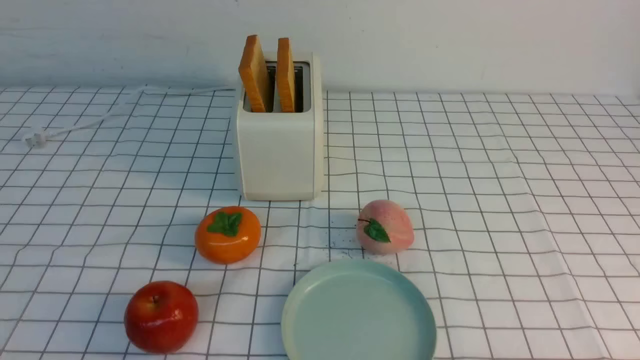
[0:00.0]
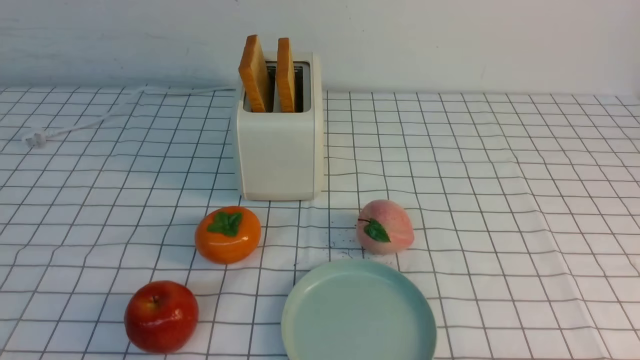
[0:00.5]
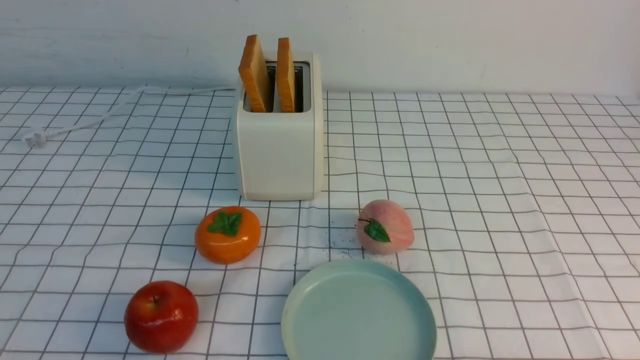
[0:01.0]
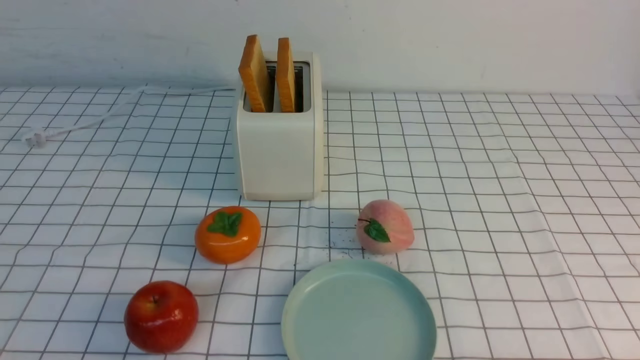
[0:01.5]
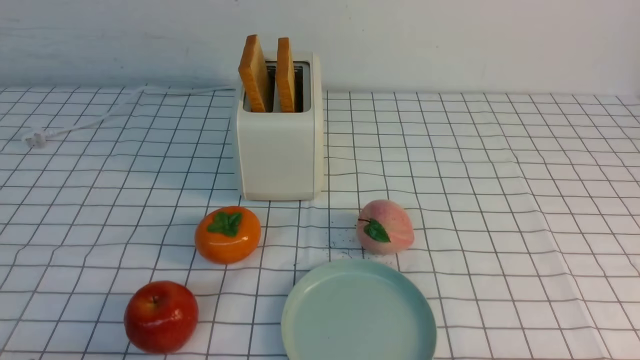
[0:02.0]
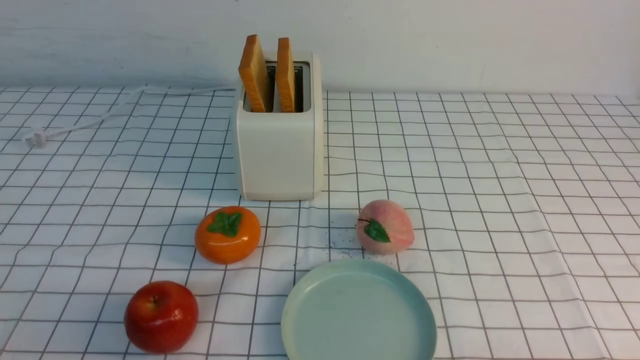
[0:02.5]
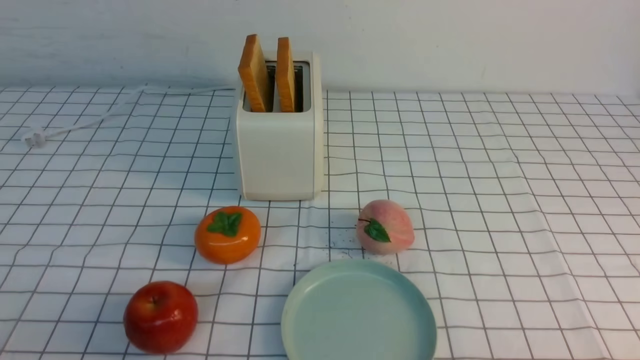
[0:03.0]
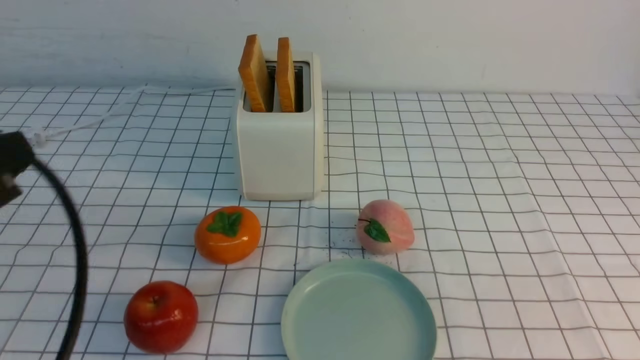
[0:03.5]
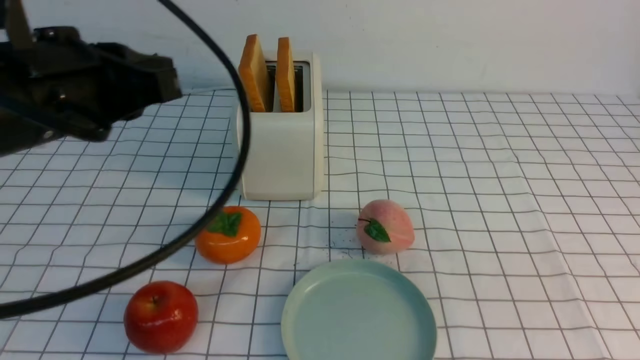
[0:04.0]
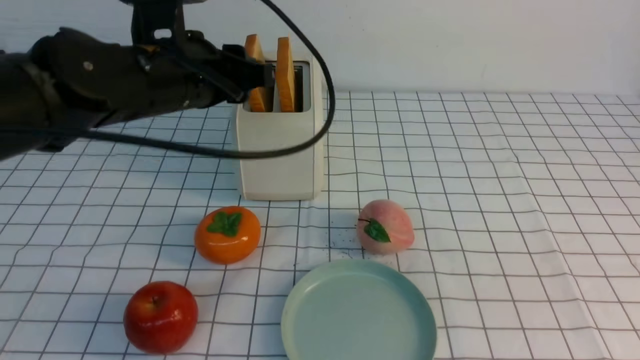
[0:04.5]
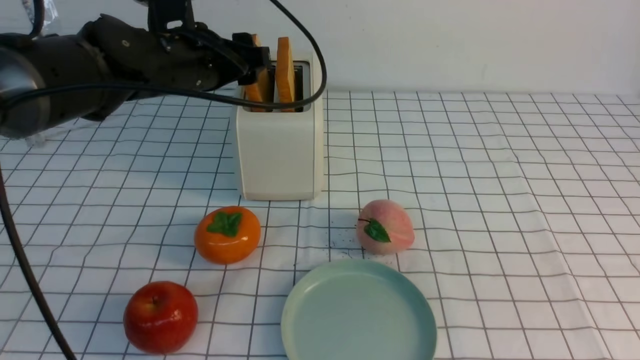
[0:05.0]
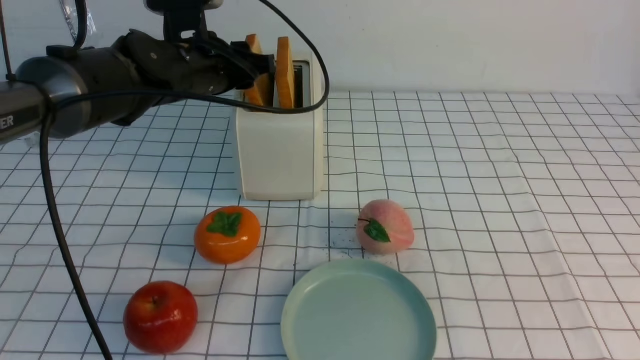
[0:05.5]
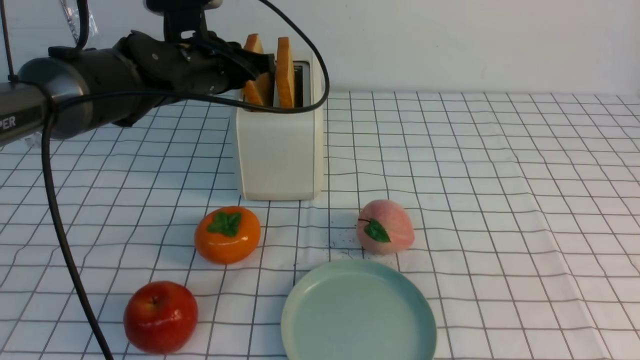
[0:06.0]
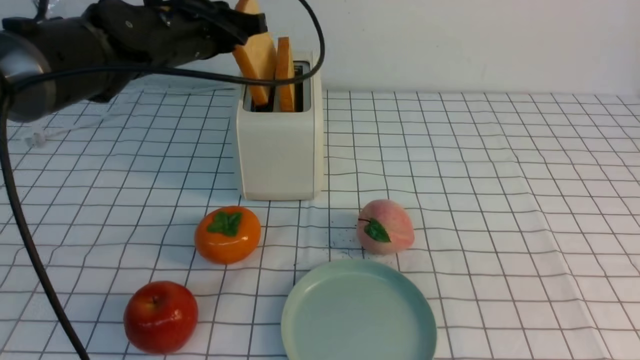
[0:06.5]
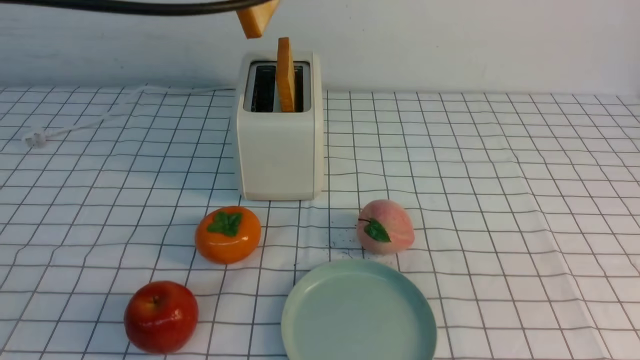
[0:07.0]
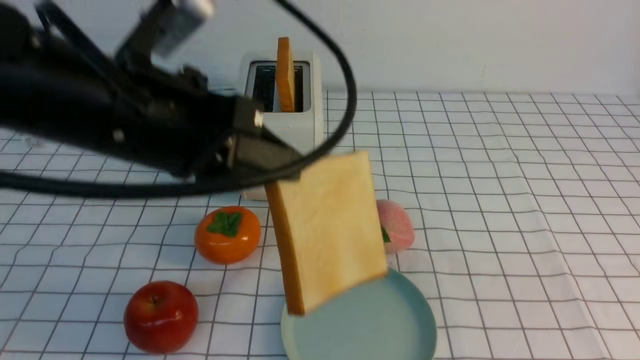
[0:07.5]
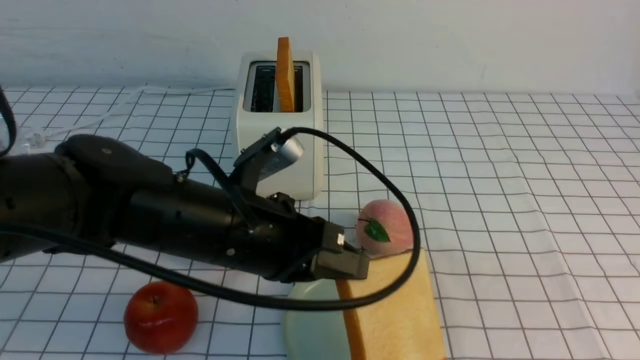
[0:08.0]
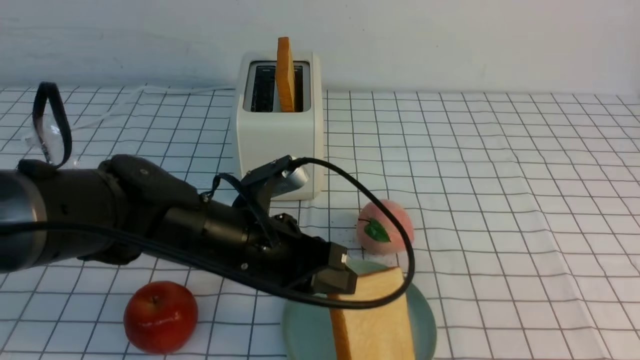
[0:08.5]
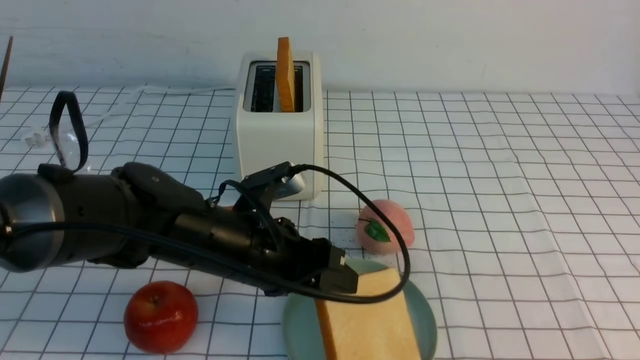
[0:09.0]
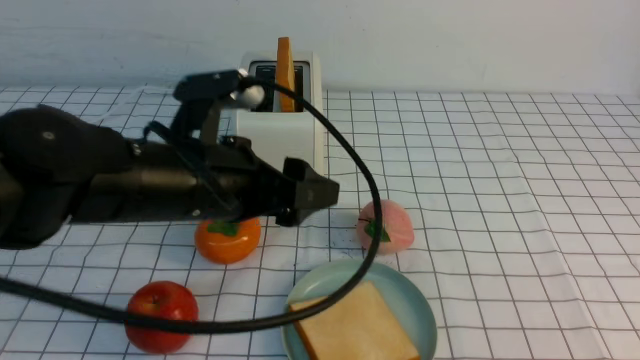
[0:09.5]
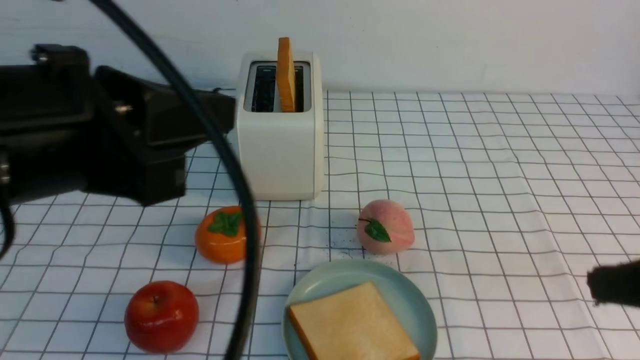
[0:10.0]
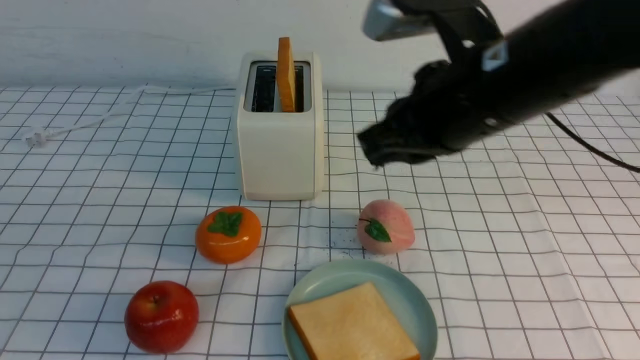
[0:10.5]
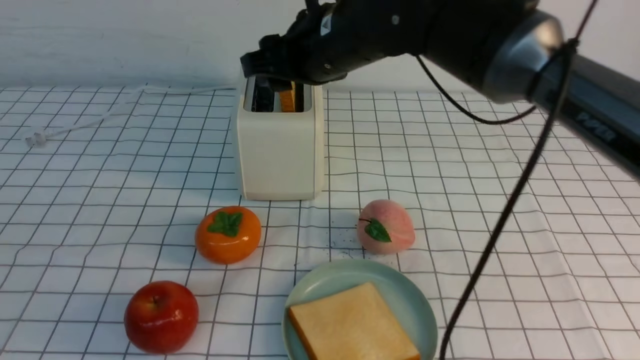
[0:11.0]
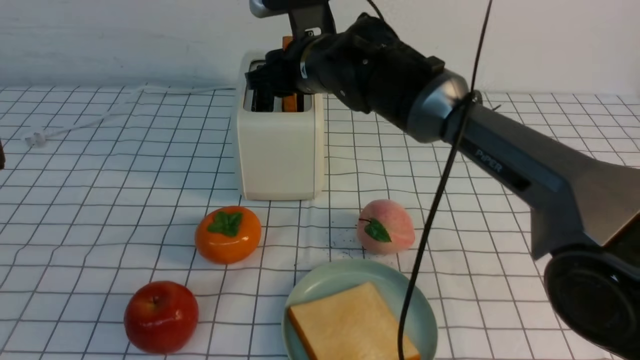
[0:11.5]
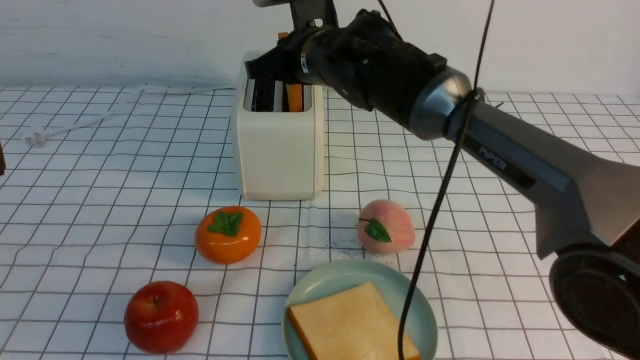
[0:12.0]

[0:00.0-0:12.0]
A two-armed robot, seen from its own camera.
Task of the whole recording: take toasted bread from bread machine on white checkered table place on plate.
Step, 0:00.0 to 0:06.5: use the left arm to take out a slice of bread.
Step, 0:07.0 to 0:09.0: use the left arm to put a slice of bread into the empty plate.
0:02.0 to 0:04.0: The left gripper shifts some 25 cm forward and upward, and closes up; the right gripper is displaced upward by approximately 20 cm, and closes its fingers.
0:04.0 to 0:06.0: The left gripper is displaced forward by approximately 20 cm, and opens, then closes again.
0:06.0 to 0:08.0: The left gripper shifts about 20 cm backward, and travels upward and back again, some 15 cm each way.
0:08.0 to 0:10.0: The left gripper is displaced upward, backward and to the left by roughly 20 cm, and opens and closes again; the right gripper is displaced forward by about 10 cm.
0:10.0 to 0:12.0: The right gripper shifts some 40 cm forward and to the left, and opens, then closes once more; the left gripper heads backward and to the left, covering some 10 cm.

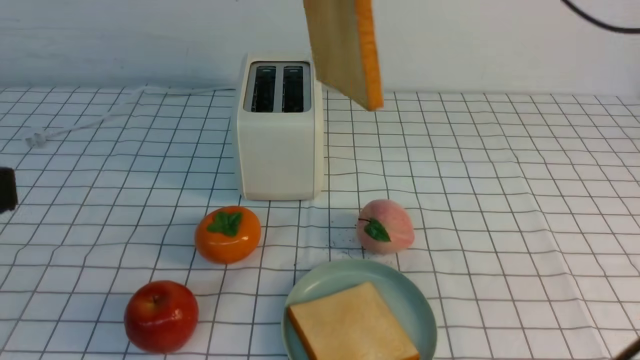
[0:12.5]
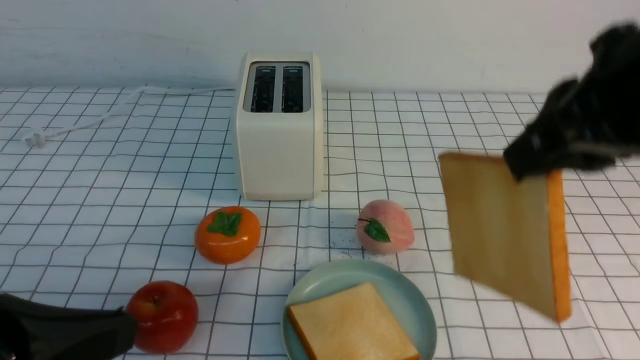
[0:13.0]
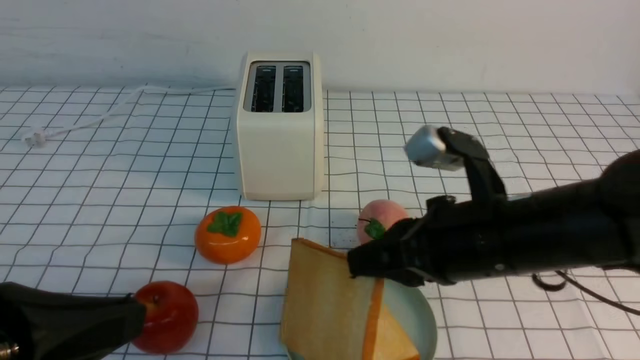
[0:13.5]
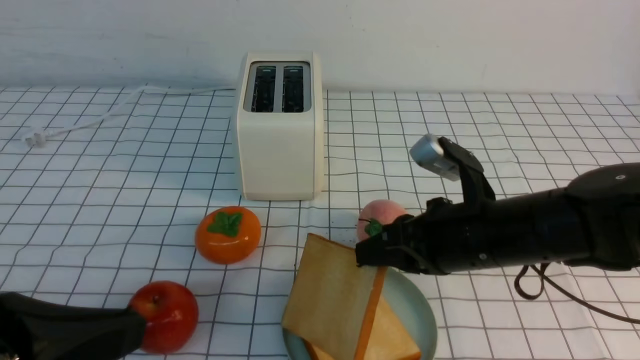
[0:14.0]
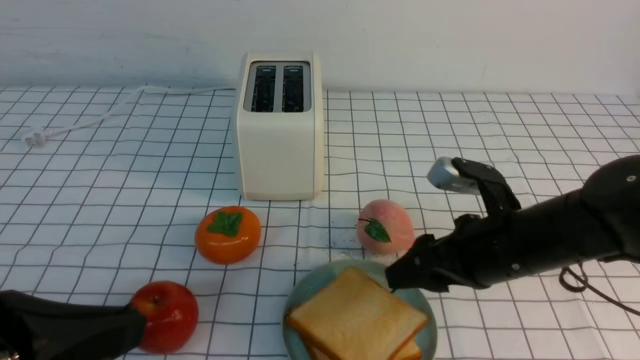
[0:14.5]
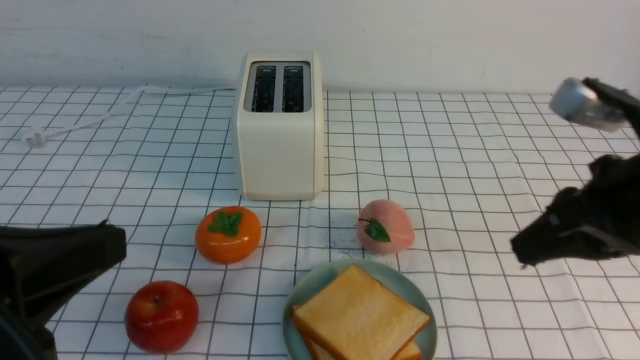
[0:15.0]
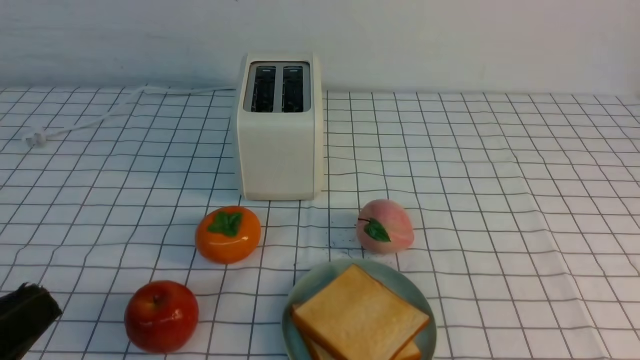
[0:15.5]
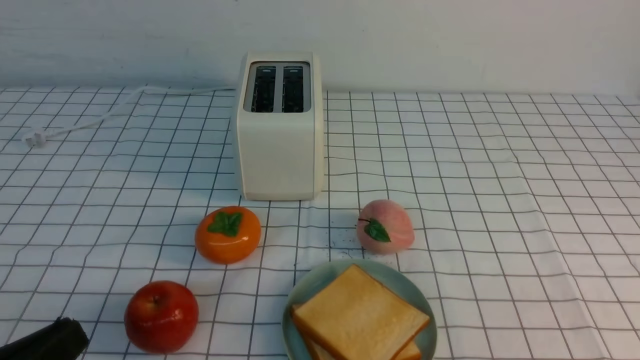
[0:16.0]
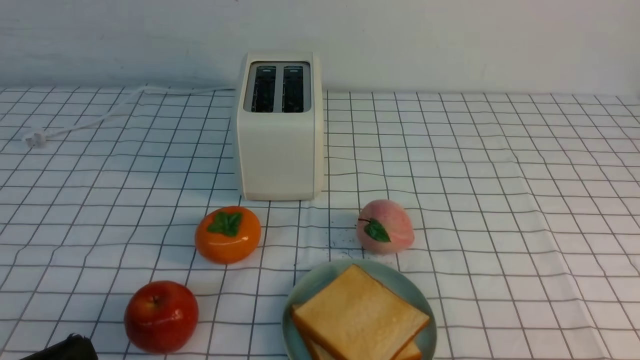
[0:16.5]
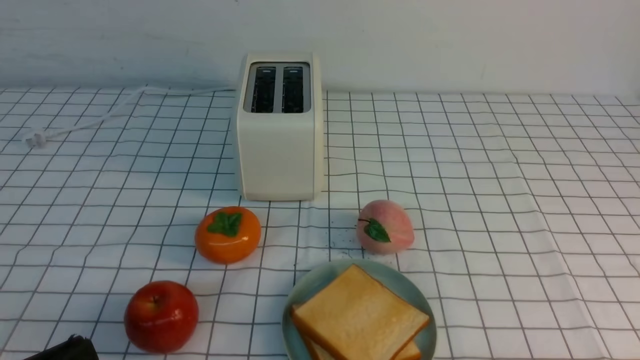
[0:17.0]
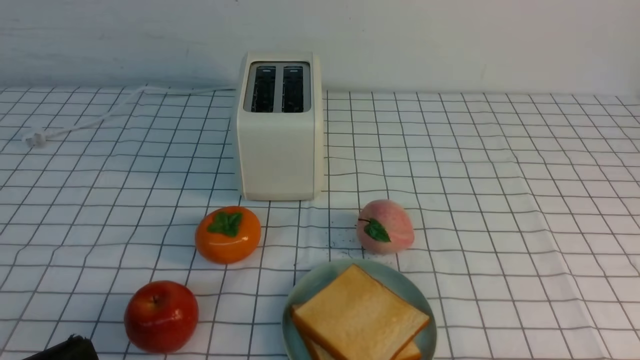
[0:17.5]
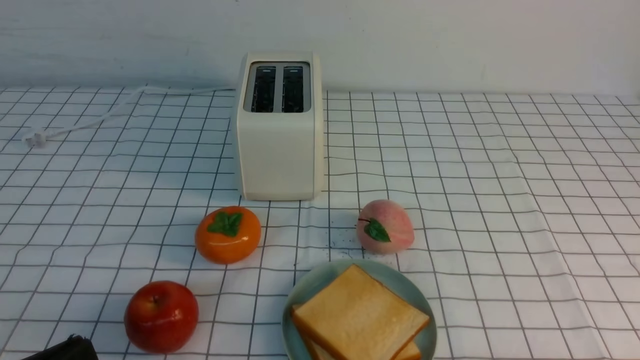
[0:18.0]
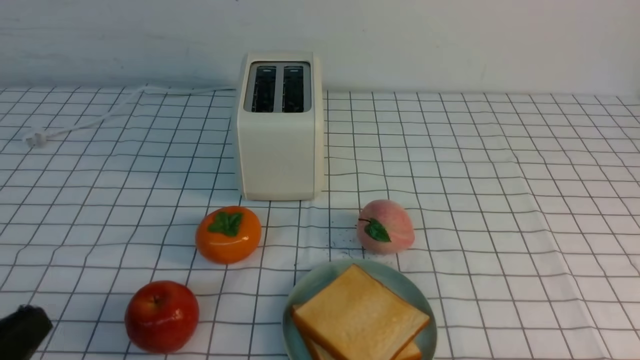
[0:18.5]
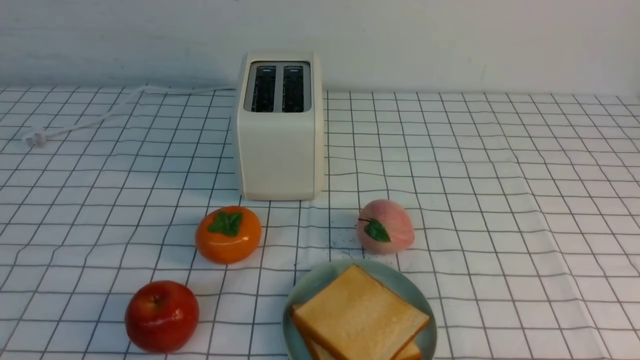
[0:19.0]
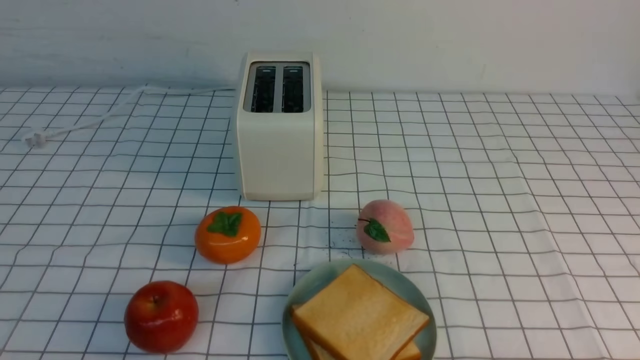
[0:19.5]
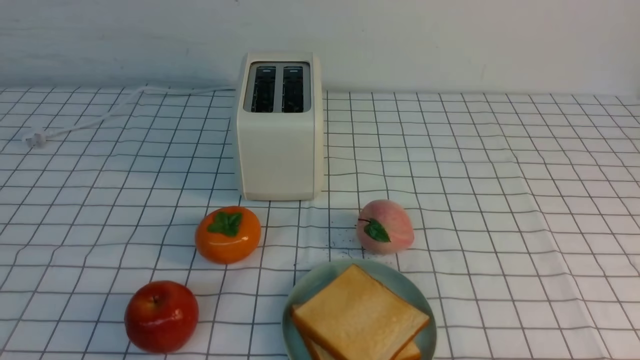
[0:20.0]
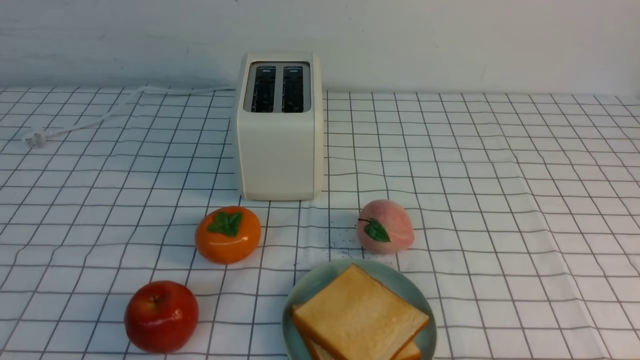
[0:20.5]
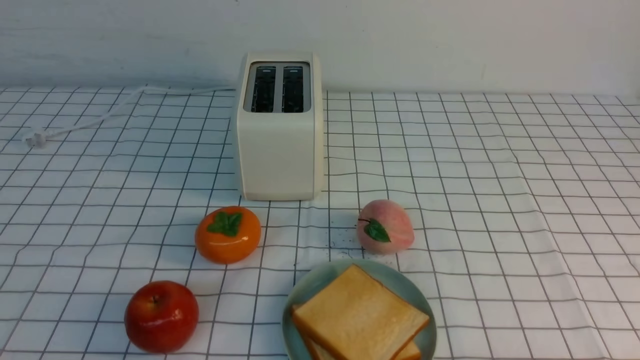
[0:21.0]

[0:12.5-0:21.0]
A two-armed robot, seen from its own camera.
Task of the whole recording: take toasted bread from bread machine on white checkered table place on plate.
Step, 0:12.5 to 0:14.5: use the right arm to put a slice of bread into the plate.
0:12.5 to 0:14.5: The left gripper goes approximately 5 cm downward. Meanwhile the right gripper travels downward by approximately 25 cm, and opens.
0:14.5 to 0:16.5: The right gripper moves backward and to the right, approximately 25 cm, and closes. The left gripper shifts approximately 10 cm downward.
0:16.5 to 0:19.0: The left gripper goes roughly 5 cm downward.
0:19.0 to 0:21.0: Both grippers stay about where they are.
